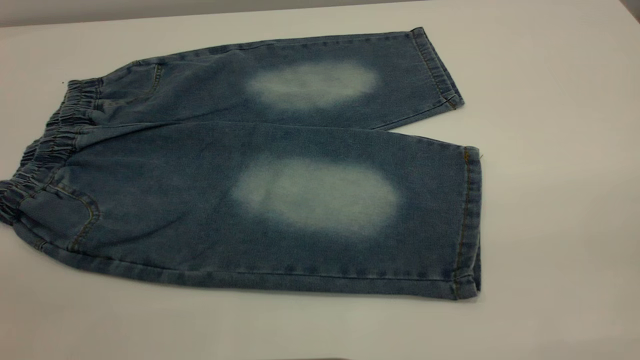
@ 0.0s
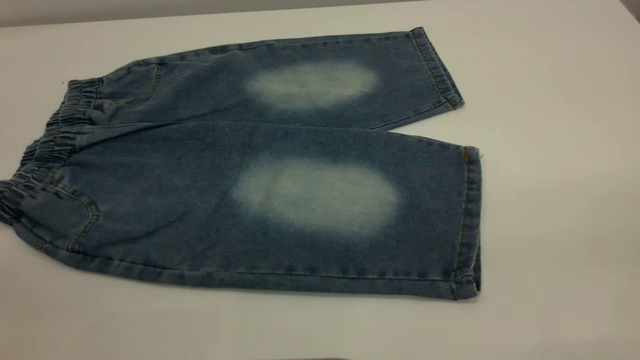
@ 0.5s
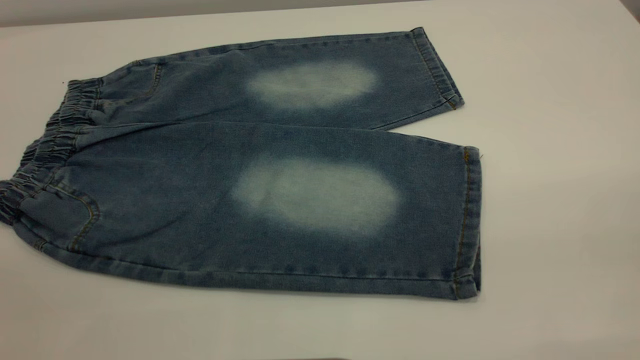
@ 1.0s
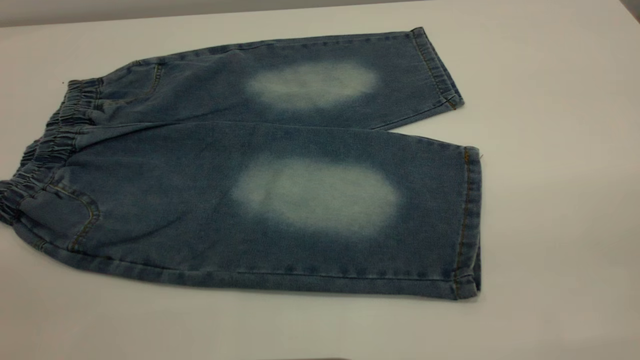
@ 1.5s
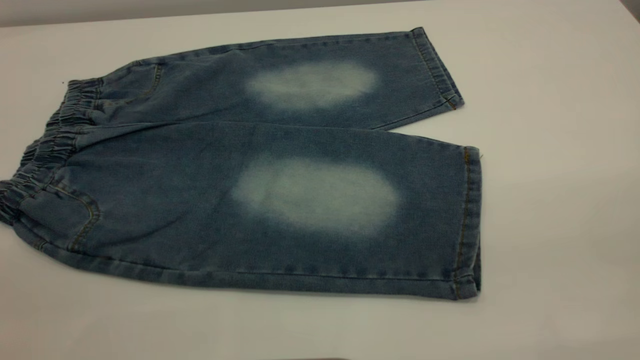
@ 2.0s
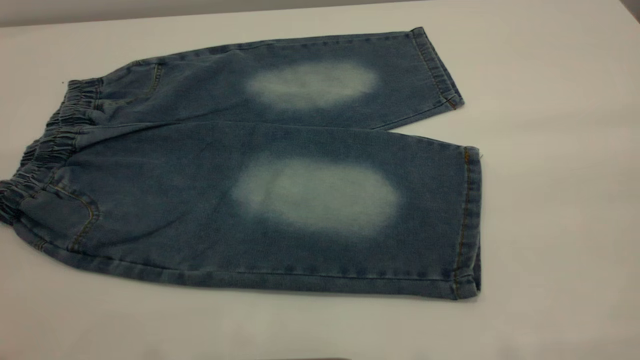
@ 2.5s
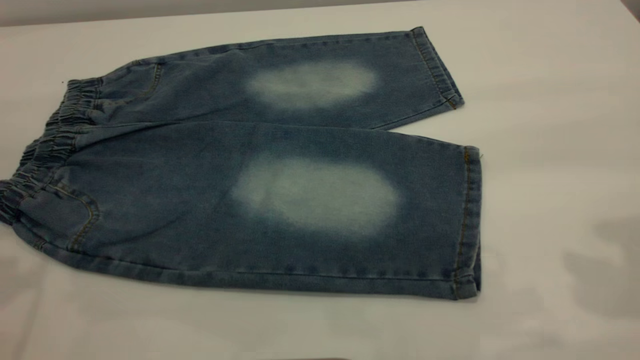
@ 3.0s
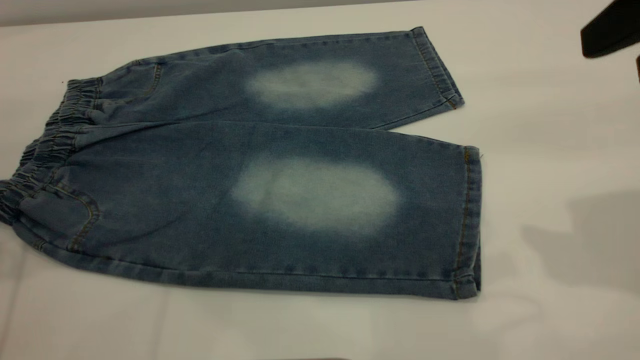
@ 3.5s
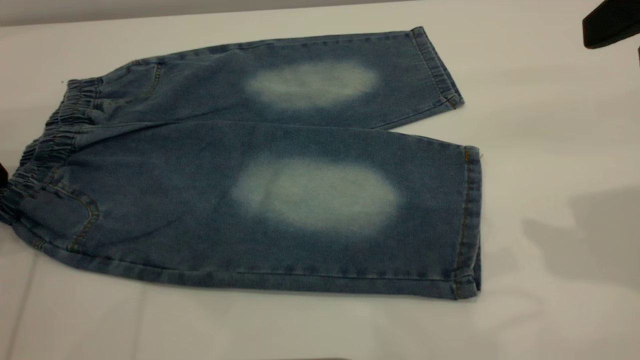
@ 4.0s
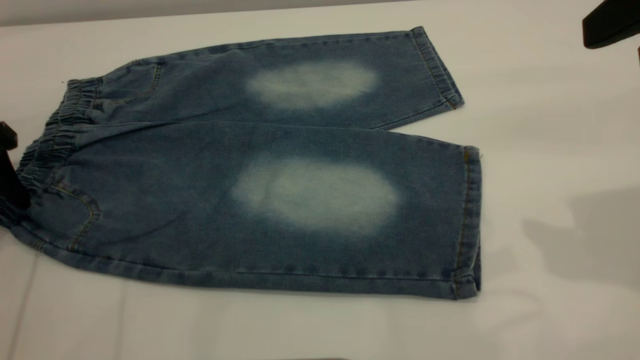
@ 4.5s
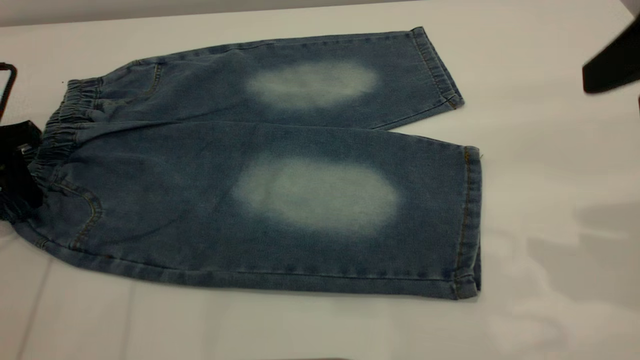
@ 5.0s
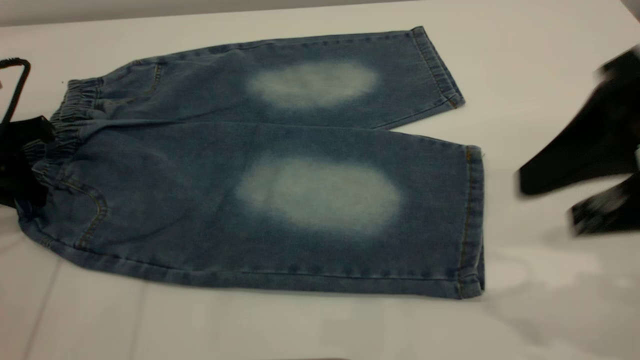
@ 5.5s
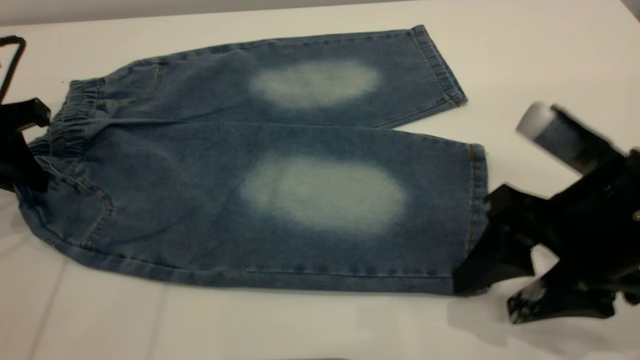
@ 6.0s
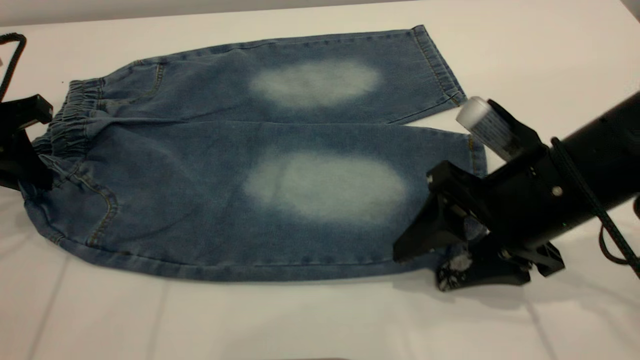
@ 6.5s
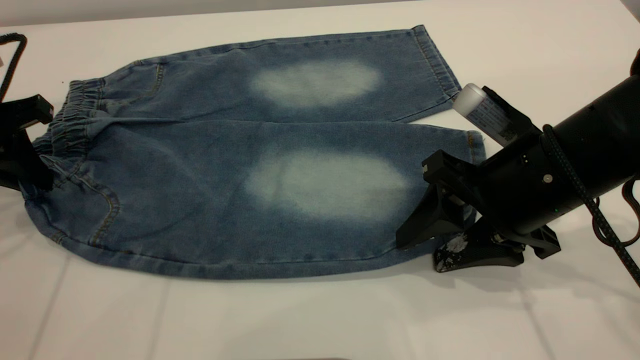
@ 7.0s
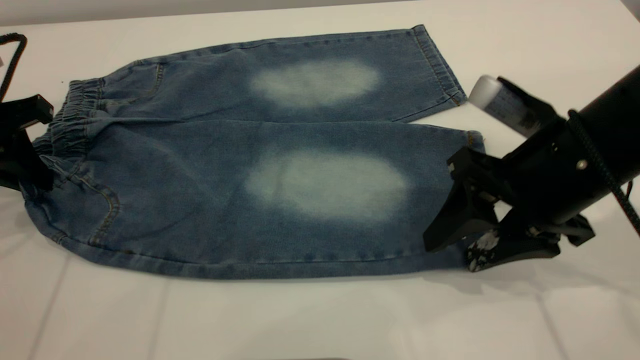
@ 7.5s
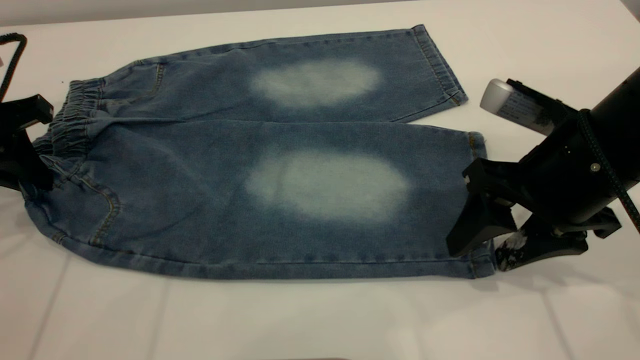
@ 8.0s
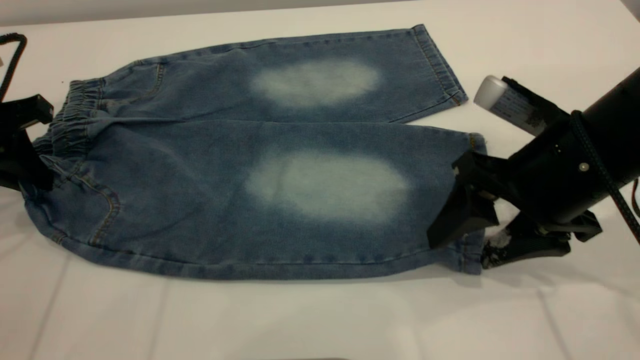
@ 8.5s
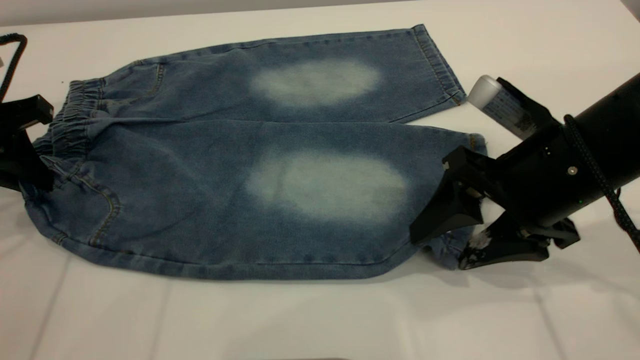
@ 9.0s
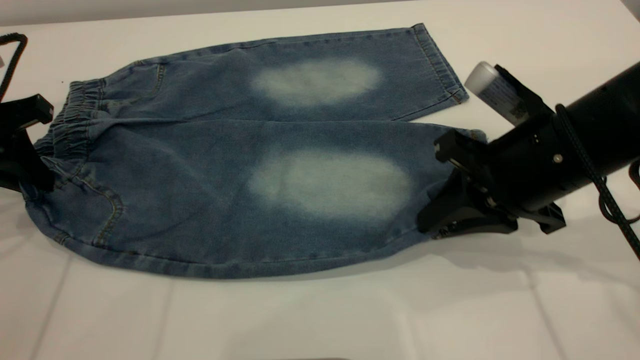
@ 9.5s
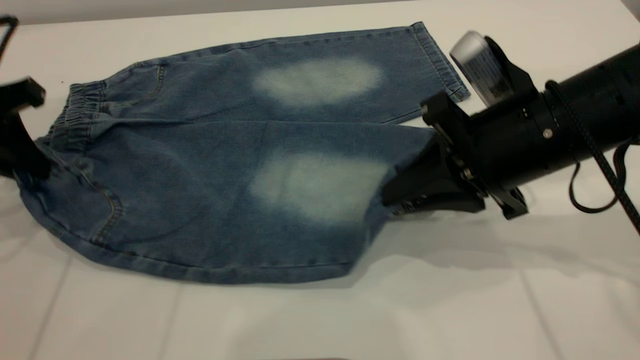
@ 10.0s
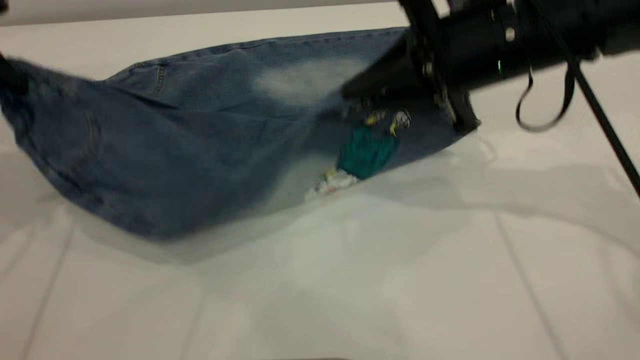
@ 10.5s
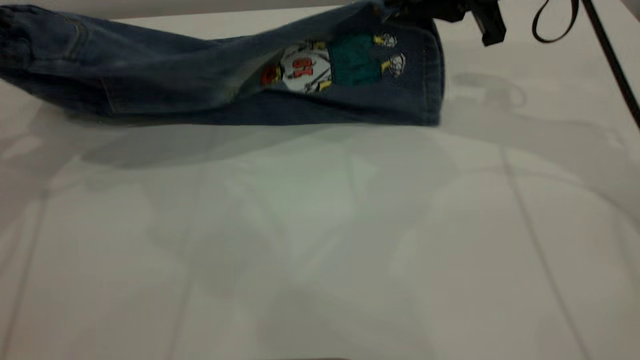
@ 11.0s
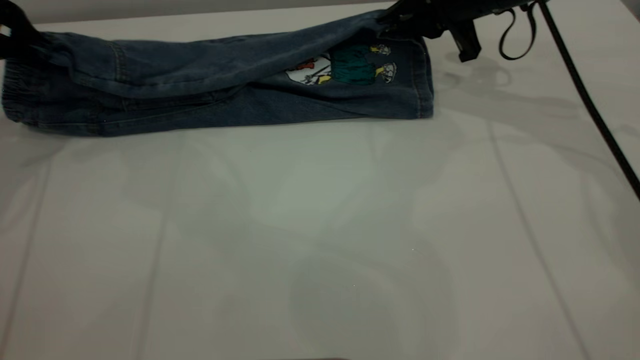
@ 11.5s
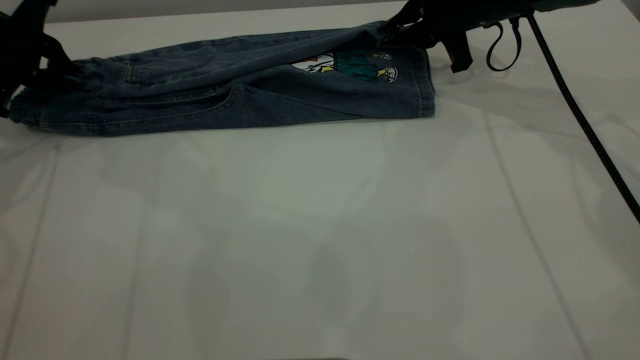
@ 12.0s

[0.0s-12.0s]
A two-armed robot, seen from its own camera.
0.0s to 2.0s: Both grippers stay about where they are.
2.0s to 4.0s: The right gripper is displaced forward by about 20 cm.
4.0s to 6.0s: The left gripper closes its fingers; the right gripper travels downward and to the left by some 20 cm.
6.0s to 8.0s: The right gripper is displaced forward by approximately 5 cm.
8.0s to 10.0s: The right gripper closes up.
10.0s to 12.0s: The left gripper goes approximately 10 cm forward. The right gripper shifts roughly 20 cm forward.

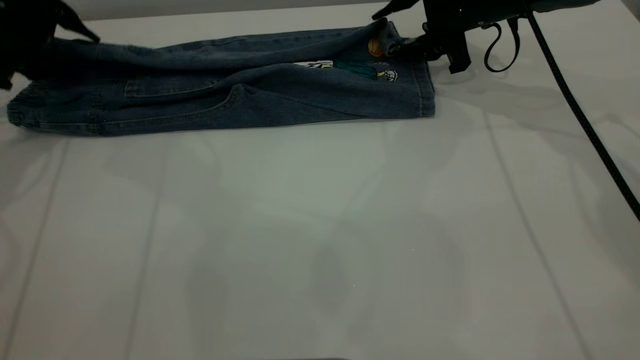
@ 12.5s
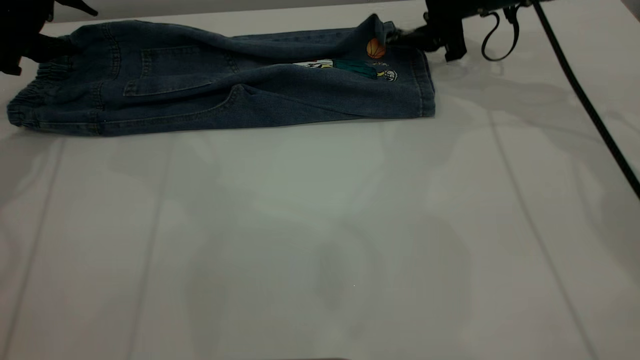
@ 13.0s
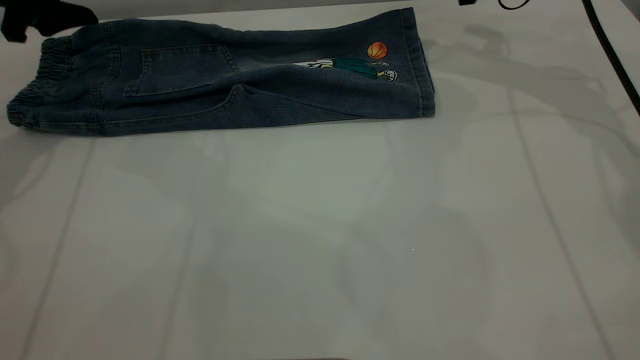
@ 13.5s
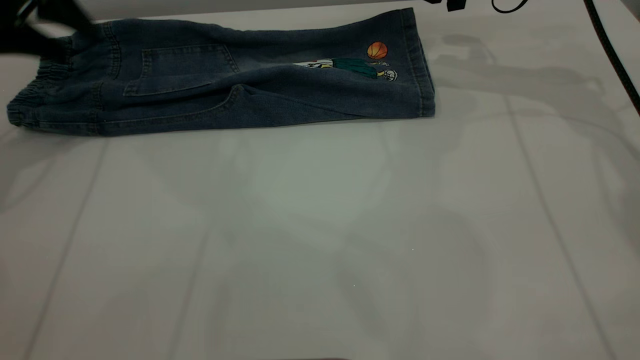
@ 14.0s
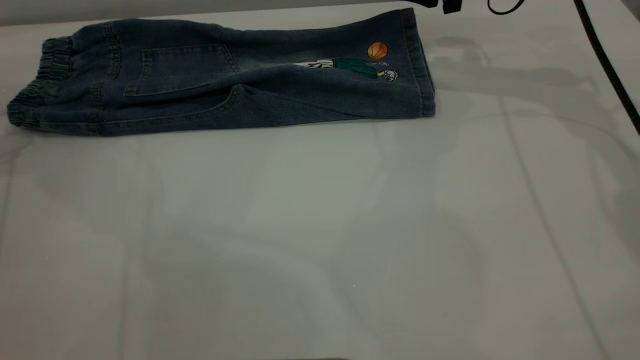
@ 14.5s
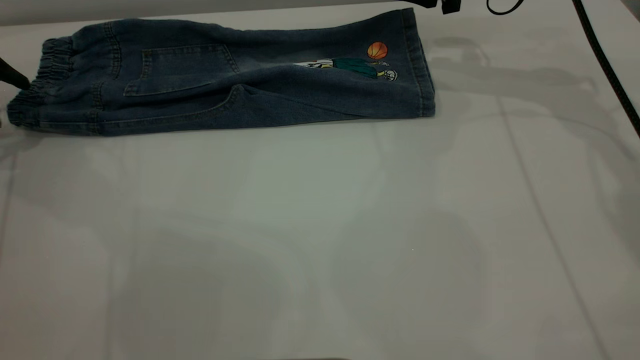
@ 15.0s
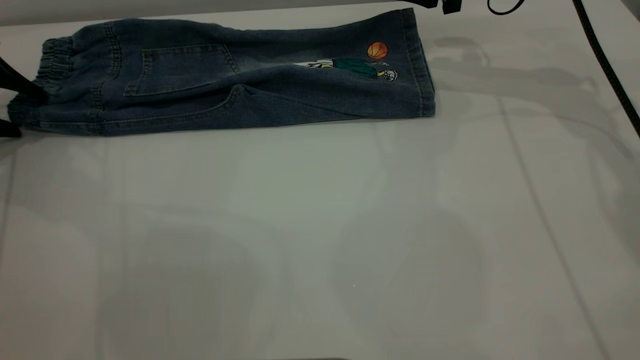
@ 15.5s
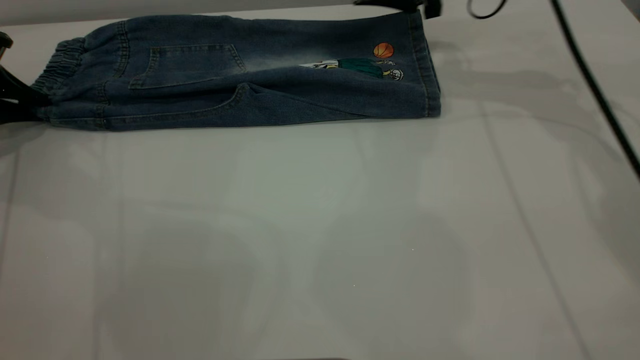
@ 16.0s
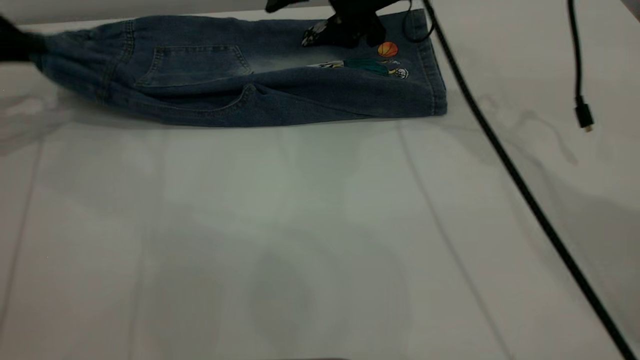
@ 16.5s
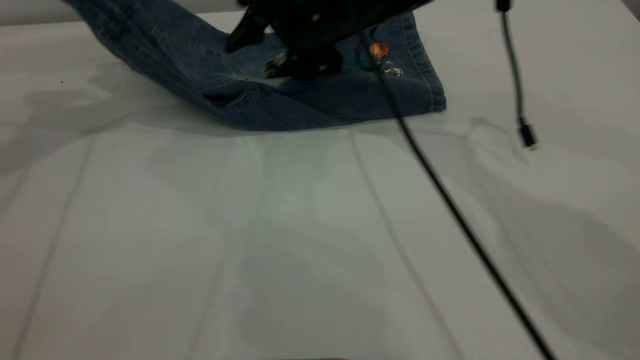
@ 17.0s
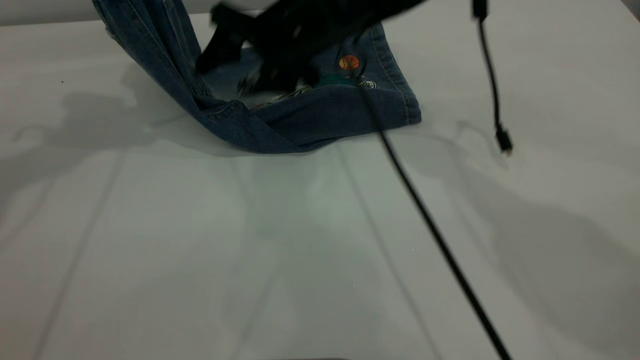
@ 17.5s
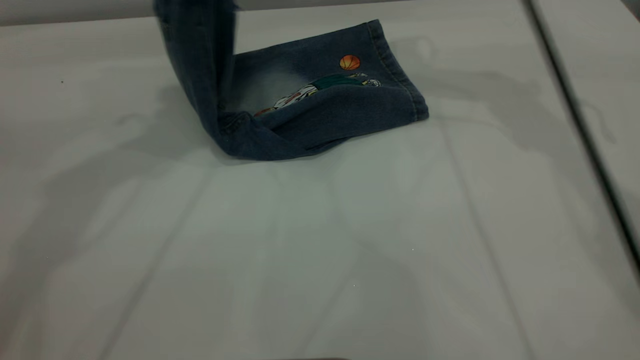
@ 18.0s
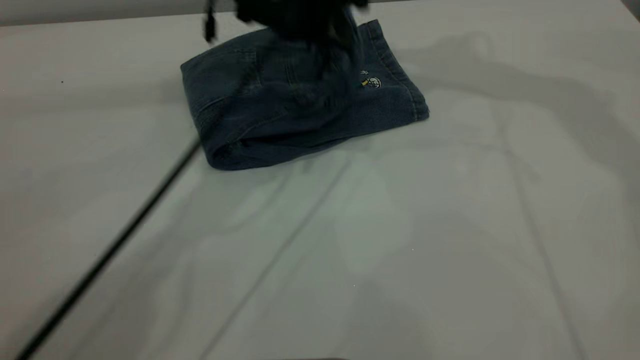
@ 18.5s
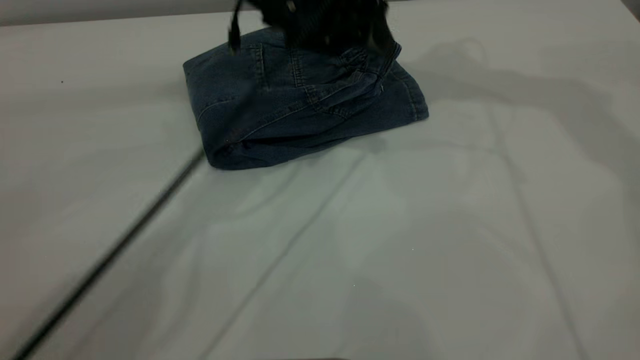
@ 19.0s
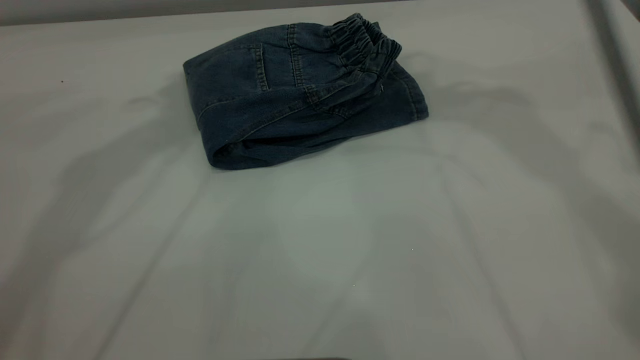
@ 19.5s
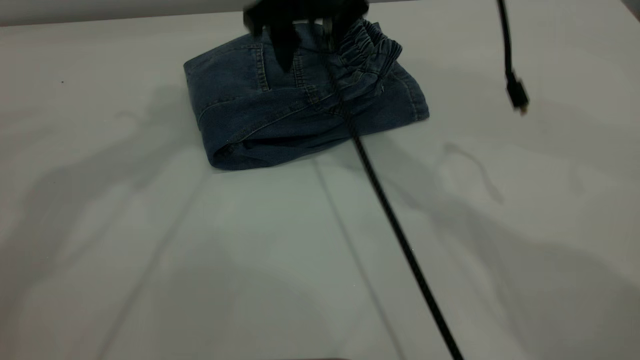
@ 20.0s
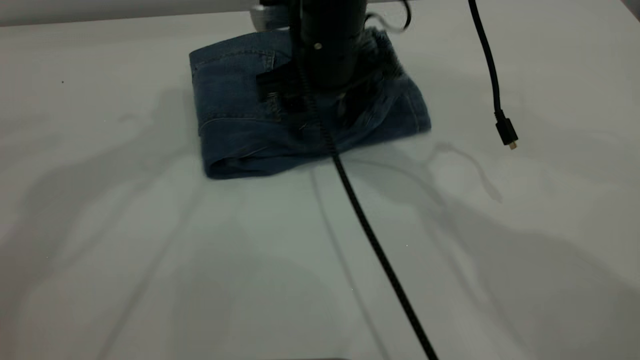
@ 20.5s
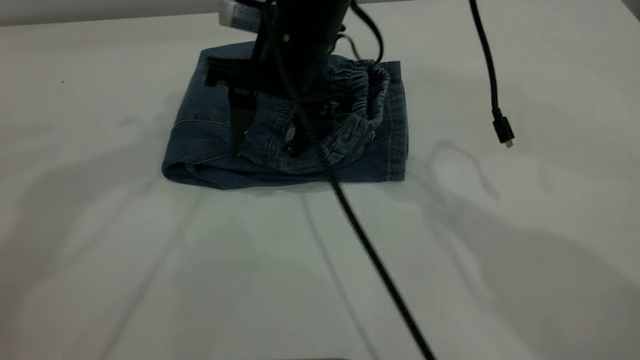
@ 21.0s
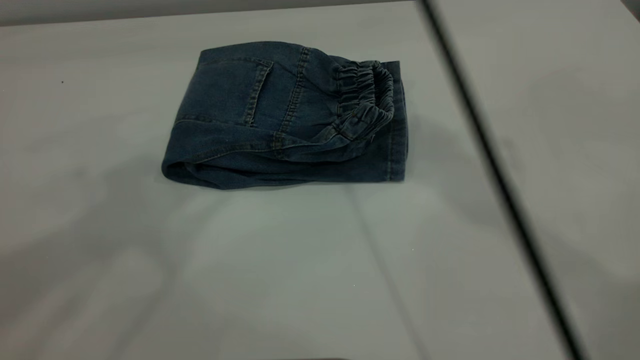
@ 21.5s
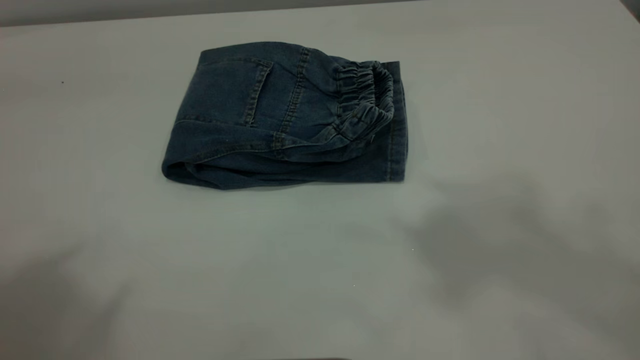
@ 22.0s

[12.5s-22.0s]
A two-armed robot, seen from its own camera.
Step, 14.0s to 19.0s: Fold the pants from left to right.
12.5s to 14.5s: The right gripper heads upward, covering some 5 cm. The left gripper goes roughly 10 cm to the left and backward.
14.5s to 16.5s: The right gripper heads to the left, covering roughly 10 cm. Meanwhile the left gripper reaches some 10 cm downward, then returns, and closes its fingers.
16.5s to 18.0s: The left gripper shifts roughly 25 cm to the right and upward. The right gripper travels upward by some 15 cm.
18.0s to 20.0s: The right gripper shifts about 15 cm to the left, downward and backward, while the left gripper moves upward, some 10 cm, and opens.
20.0s to 22.0s: The right gripper travels upward and backward by roughly 40 cm. The left gripper shifts some 25 cm backward and upward.
